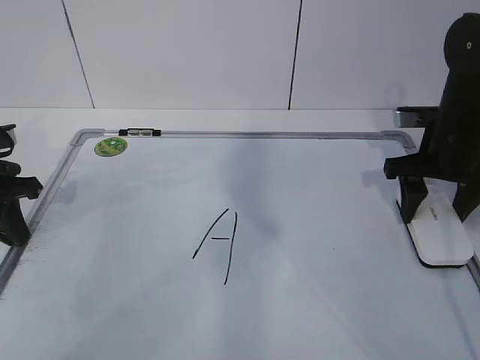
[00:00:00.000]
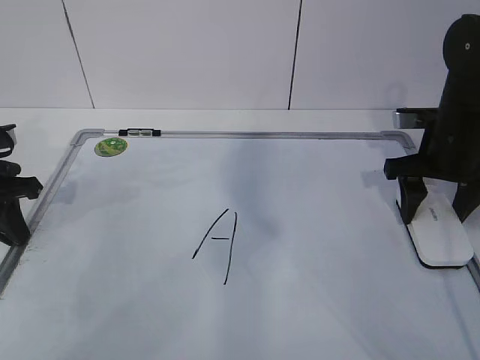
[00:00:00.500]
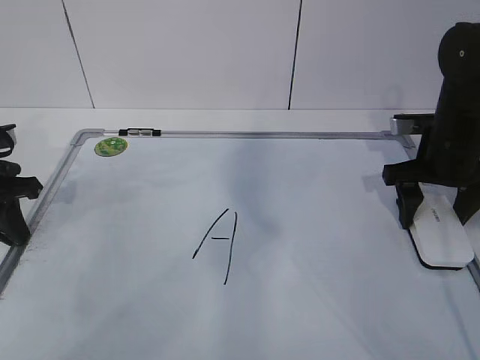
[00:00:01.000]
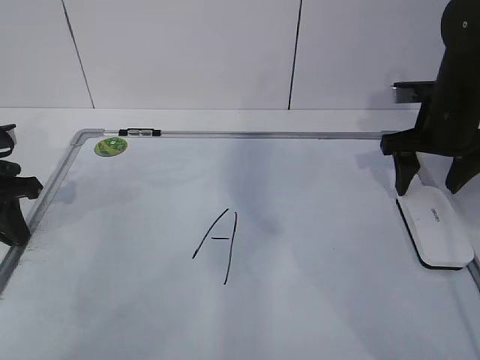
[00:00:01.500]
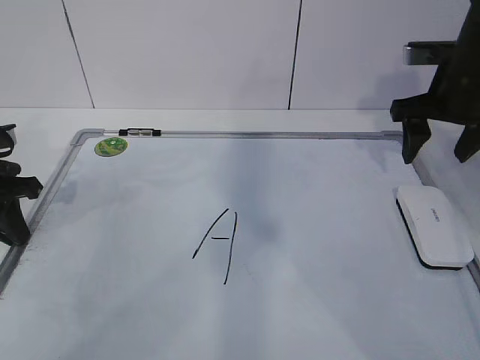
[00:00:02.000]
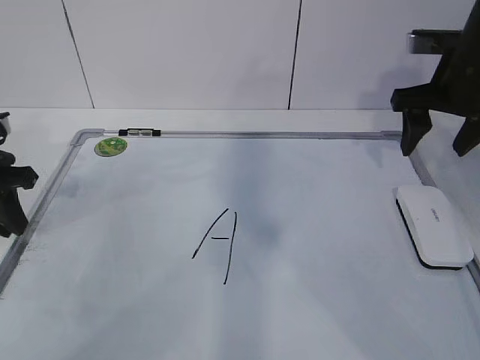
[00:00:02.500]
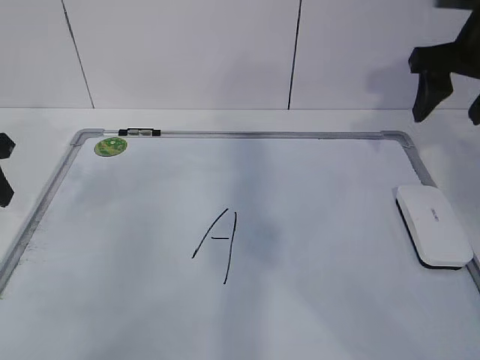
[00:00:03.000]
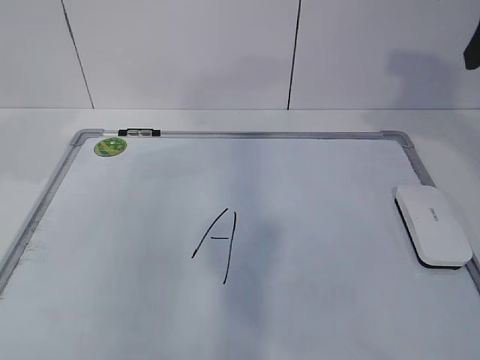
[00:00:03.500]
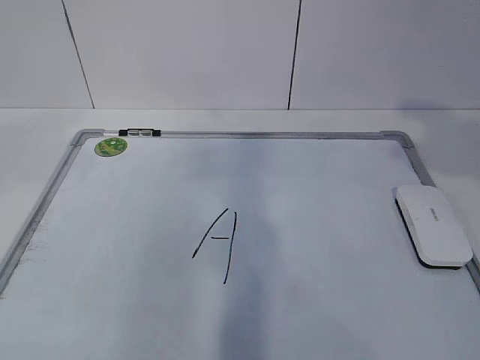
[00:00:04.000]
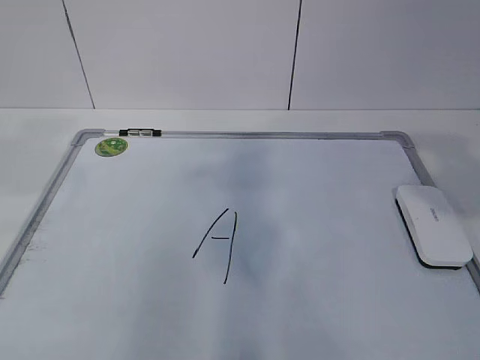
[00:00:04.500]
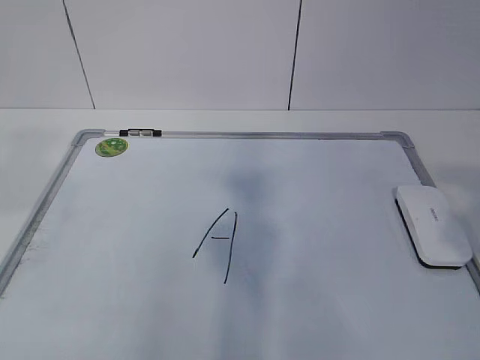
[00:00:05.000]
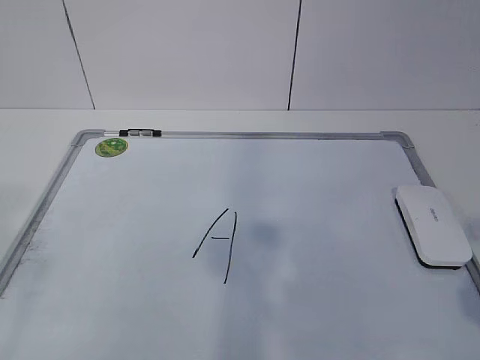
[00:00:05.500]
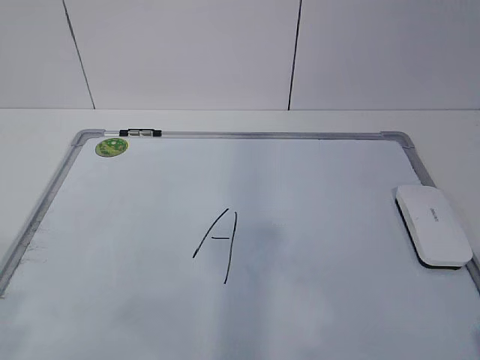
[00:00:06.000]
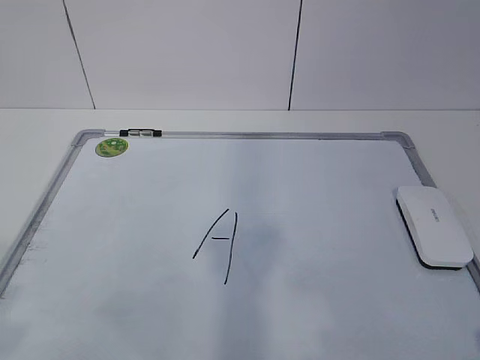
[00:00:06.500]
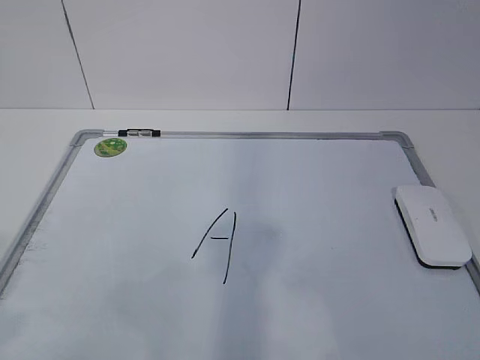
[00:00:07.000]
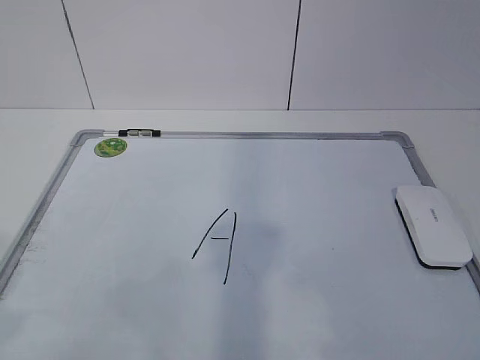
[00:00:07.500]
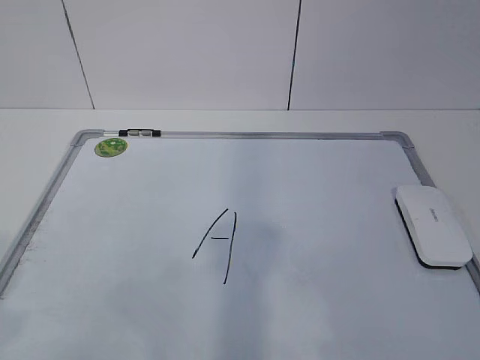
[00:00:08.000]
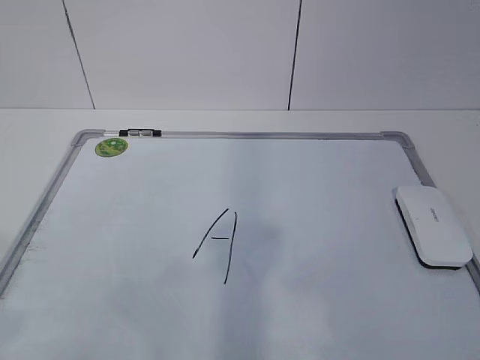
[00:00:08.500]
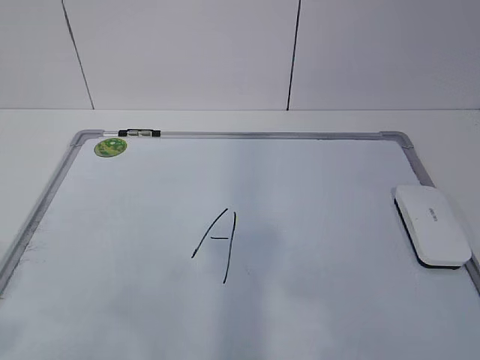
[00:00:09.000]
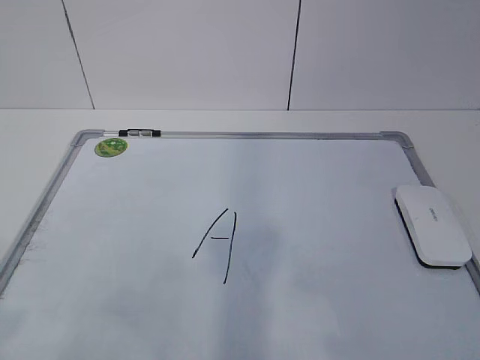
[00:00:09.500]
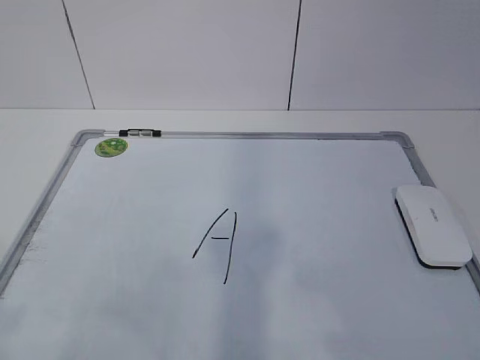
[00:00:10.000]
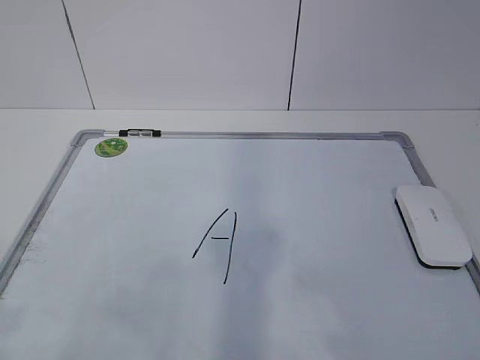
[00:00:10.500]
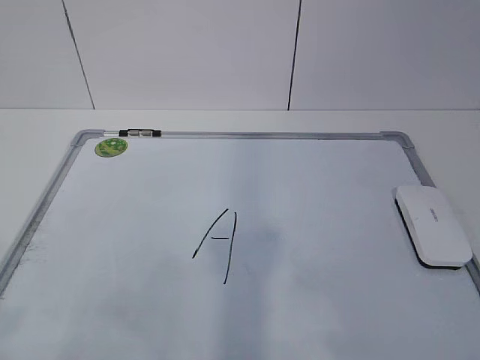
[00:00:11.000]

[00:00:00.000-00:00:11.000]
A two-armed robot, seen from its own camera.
Task of the whole recording: pick up the eraser on the blackboard and erase the letter "a".
00:00:00.000 to 00:00:02.000: The right gripper shifts roughly 5 cm upward, and opens up.
00:00:02.000 to 00:00:03.500: Both grippers travel together upward and backward, roughly 15 cm. The left gripper opens up.
00:00:03.500 to 00:00:05.500: The right gripper is displaced backward by some 25 cm.

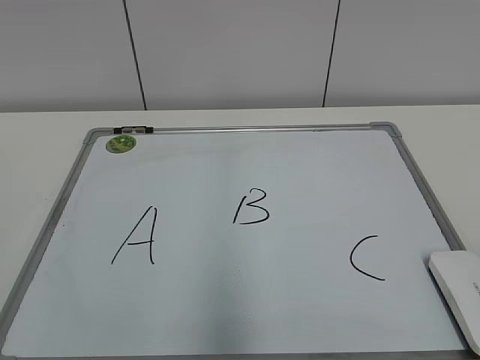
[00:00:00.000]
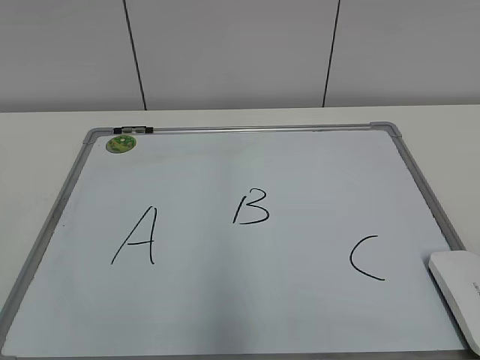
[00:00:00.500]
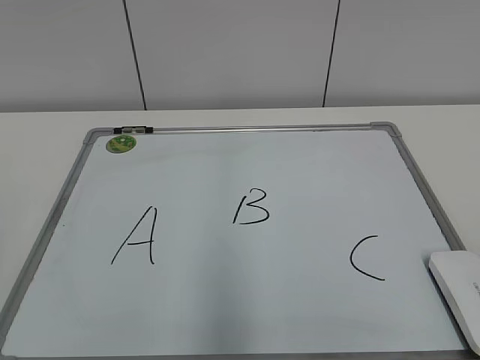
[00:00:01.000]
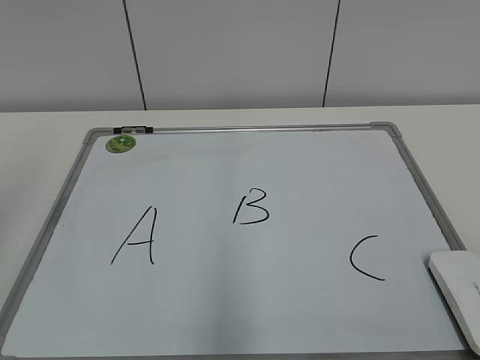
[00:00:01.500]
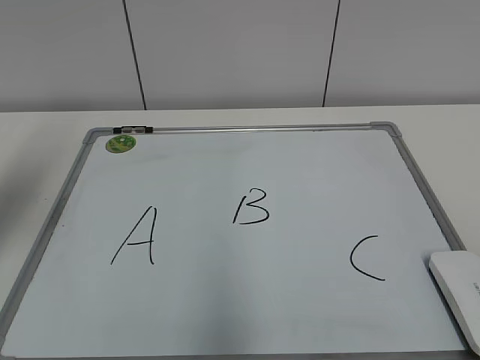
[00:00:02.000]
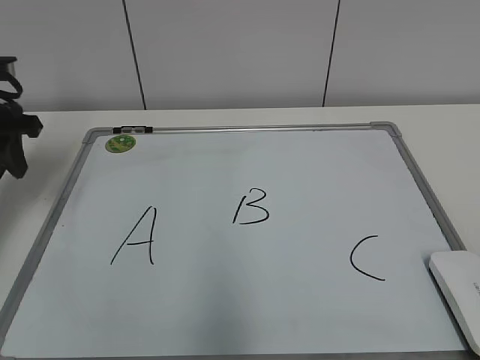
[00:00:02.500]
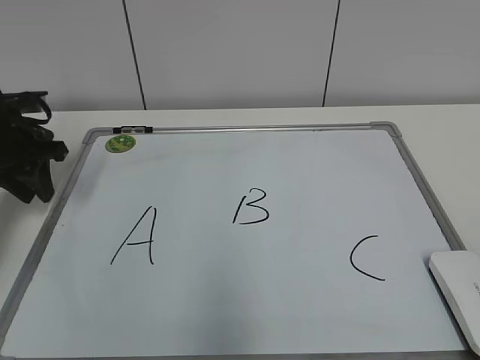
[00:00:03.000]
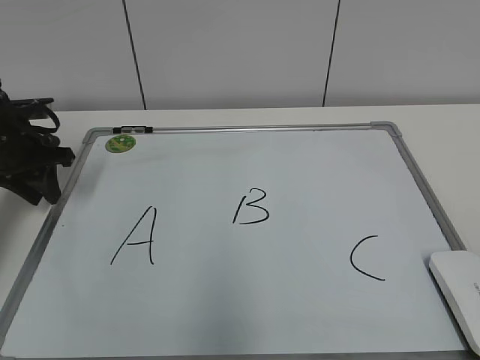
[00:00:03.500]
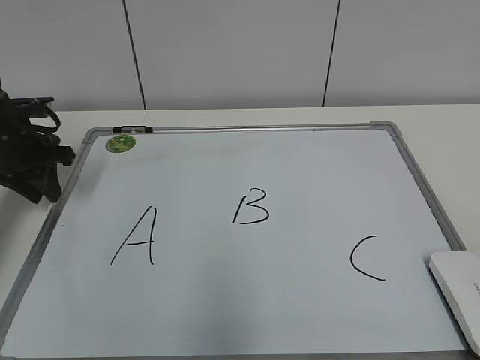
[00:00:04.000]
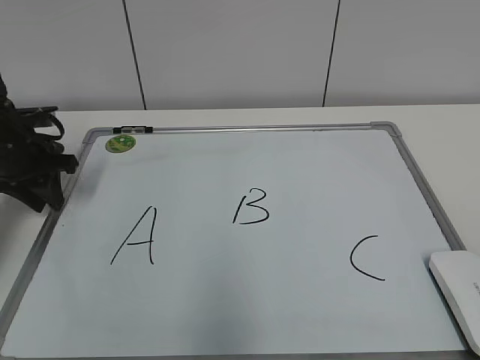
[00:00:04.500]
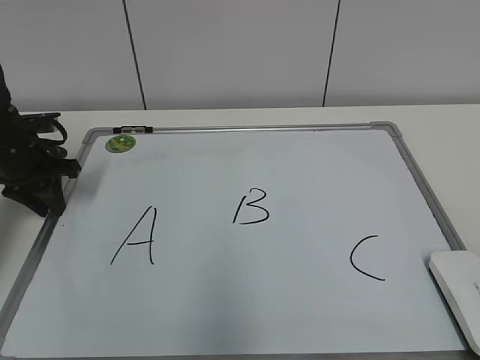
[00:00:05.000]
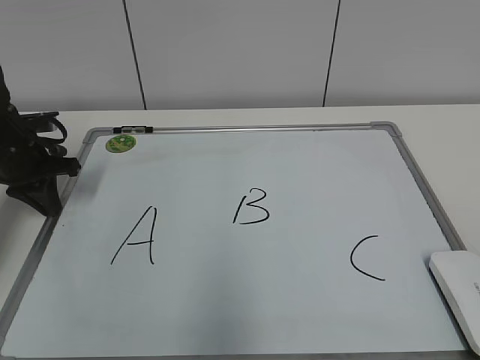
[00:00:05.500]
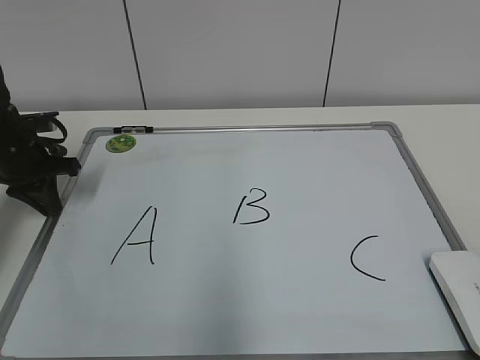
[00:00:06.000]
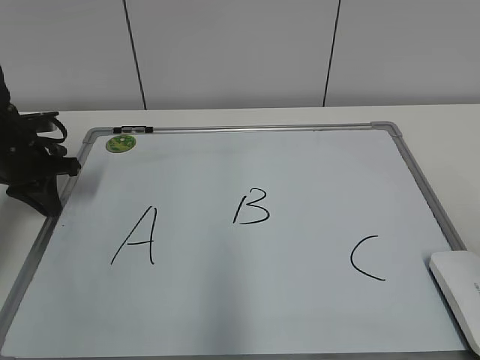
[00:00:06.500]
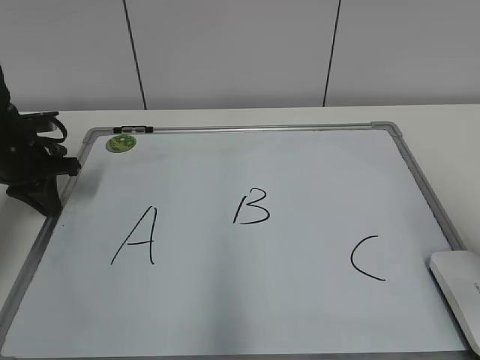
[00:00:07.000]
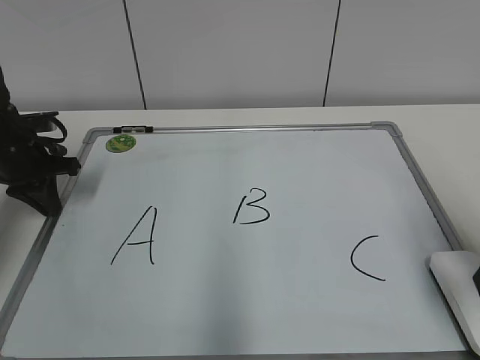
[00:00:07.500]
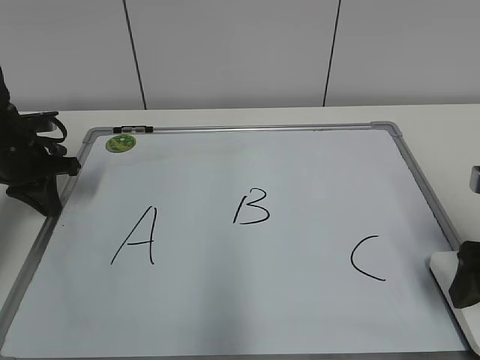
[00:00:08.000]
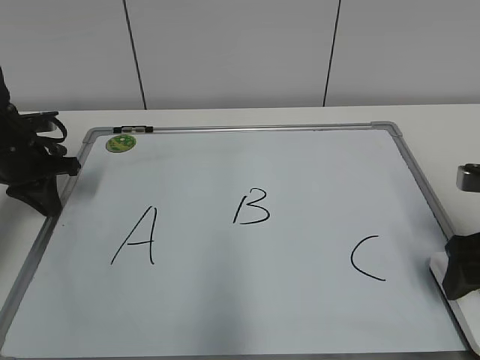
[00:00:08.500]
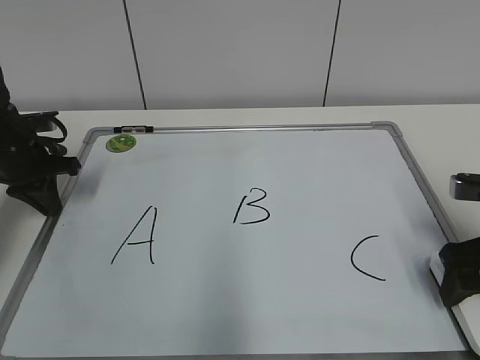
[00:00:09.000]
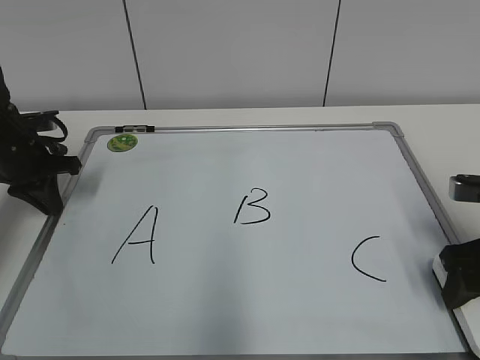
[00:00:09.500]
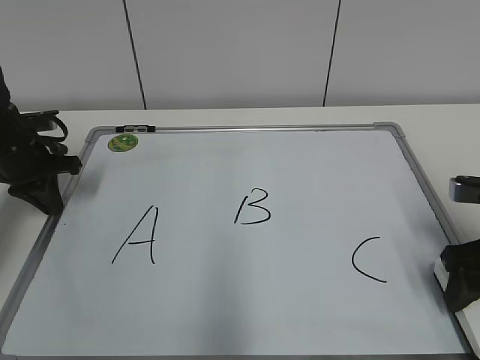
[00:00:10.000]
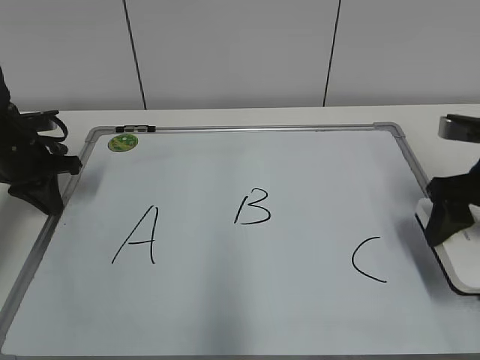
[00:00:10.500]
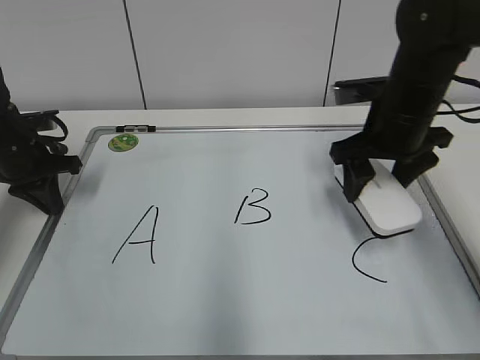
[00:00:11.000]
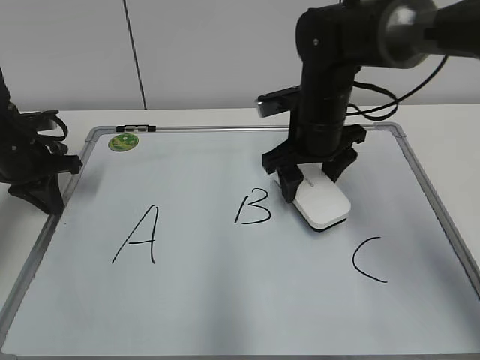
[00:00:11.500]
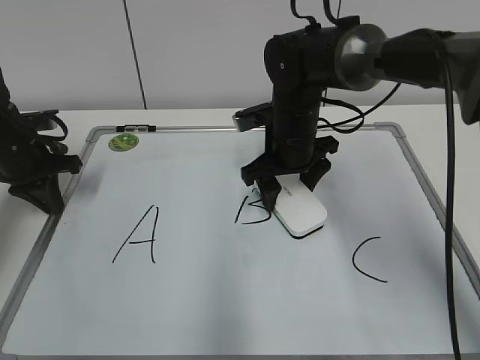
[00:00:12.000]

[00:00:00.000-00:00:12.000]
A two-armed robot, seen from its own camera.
Task of the whole recording: pick up the eraser on the blackboard and erase the letter "B".
Step, 00:00:00.000 to 00:00:05.500: Hold the drawing board steady with your left hand.
Step, 00:00:06.000 to 00:00:09.500: Grab the eraser with your right hand.
00:00:02.000 to 00:00:04.000: The left gripper is displaced downward and forward by about 20 cm.
00:00:04.000 to 00:00:06.000: The left gripper closes up.
00:00:06.000 to 00:00:08.000: The right gripper is displaced forward by approximately 25 cm, and opens up.
00:00:08.000 to 00:00:10.000: The right gripper closes up.
00:00:10.000 to 00:00:12.000: The right gripper heads to the left and forward, covering some 25 cm.

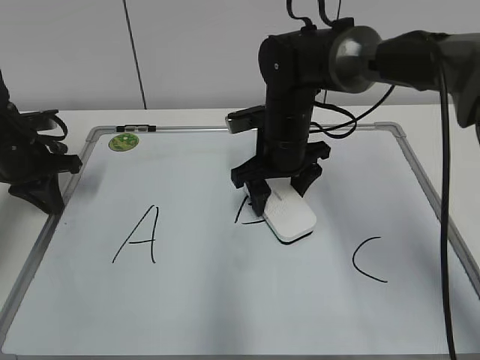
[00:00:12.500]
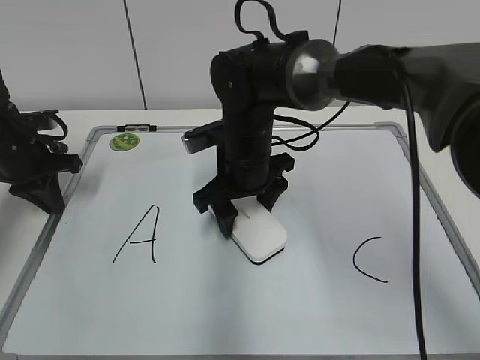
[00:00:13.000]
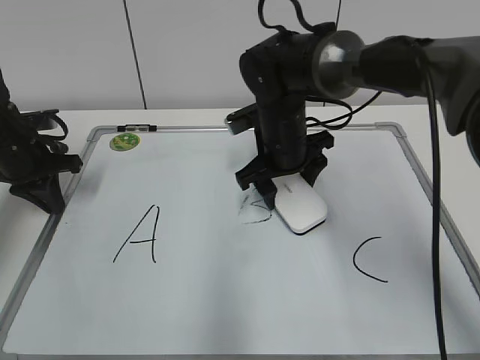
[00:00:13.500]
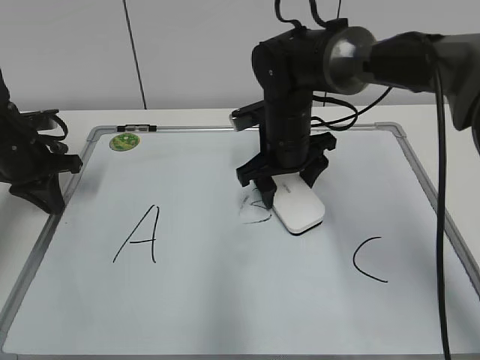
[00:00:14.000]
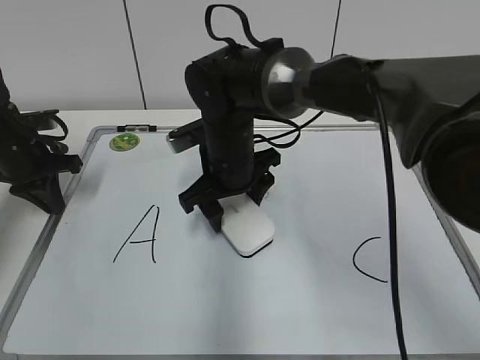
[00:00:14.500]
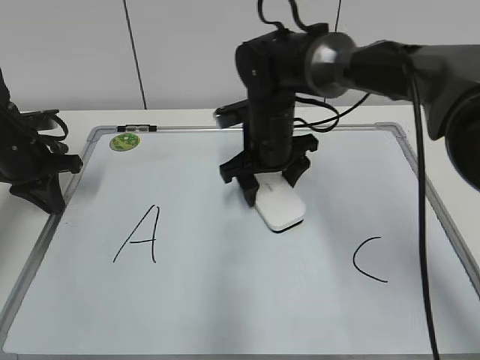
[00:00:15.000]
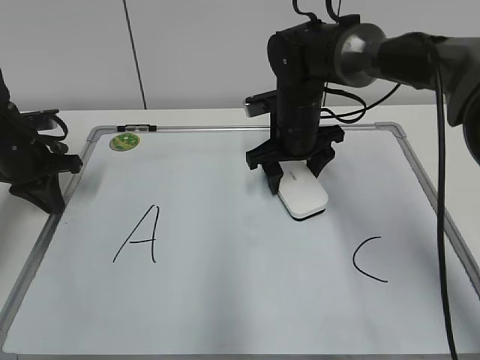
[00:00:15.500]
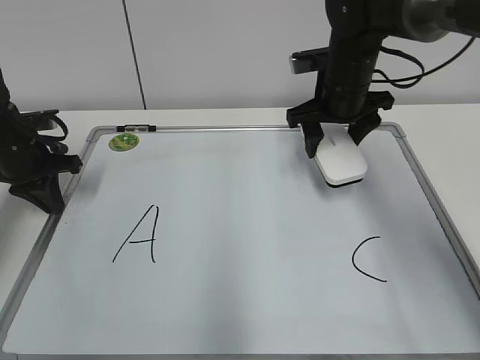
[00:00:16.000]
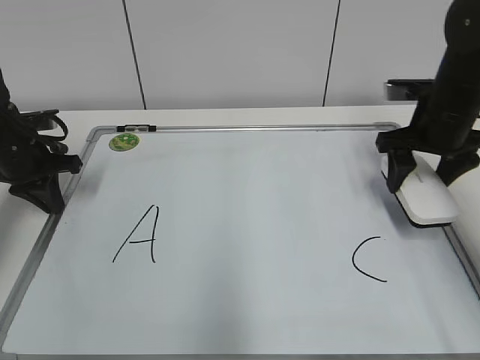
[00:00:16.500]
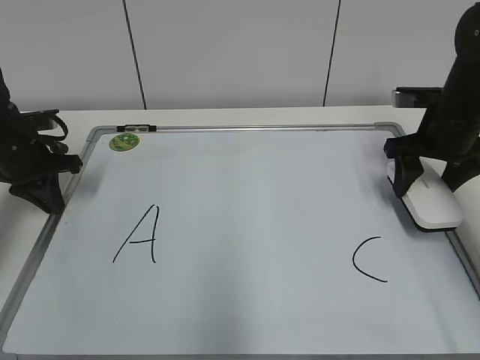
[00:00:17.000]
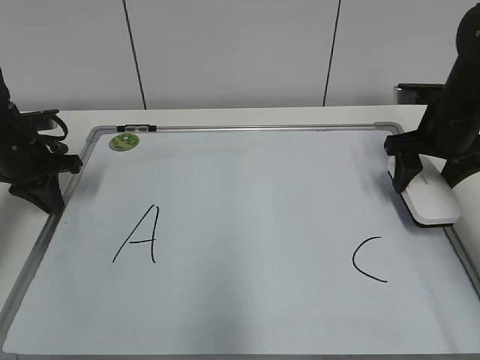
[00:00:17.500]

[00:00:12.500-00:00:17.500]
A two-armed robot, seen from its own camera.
Task of the whole recording: pick up the eraser on the blackboard and erase the letter "B".
Step, 00:00:12.500 to 00:00:15.000: Erase the letter B with your right hand.
00:00:12.500 to 00:00:15.000: The right gripper moves left and right over approximately 5 cm, changing direction 3 times.
00:00:15.000 to 00:00:17.500: The right gripper shifts approximately 25 cm to the right.
